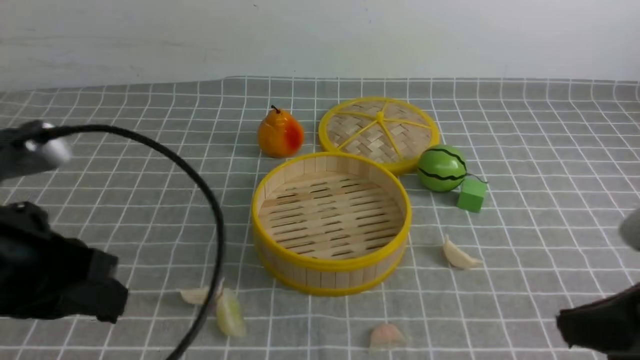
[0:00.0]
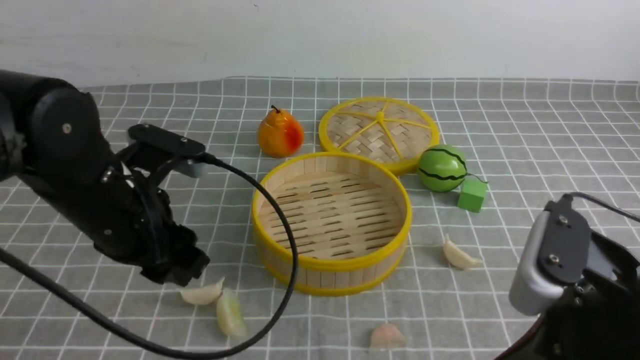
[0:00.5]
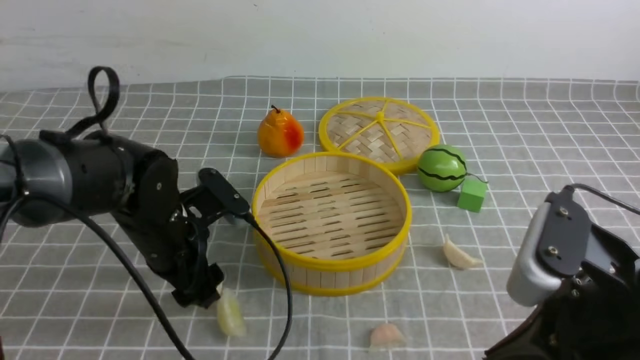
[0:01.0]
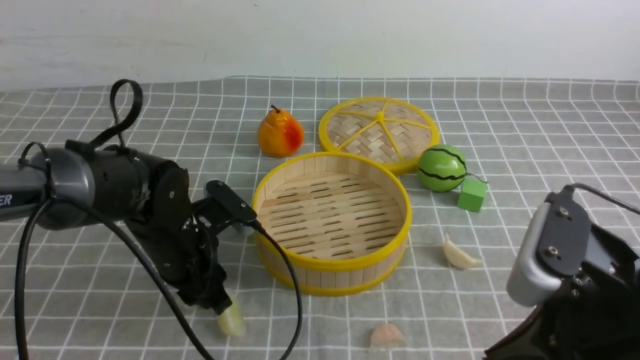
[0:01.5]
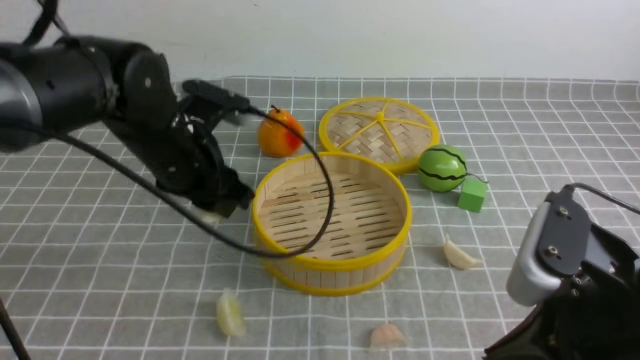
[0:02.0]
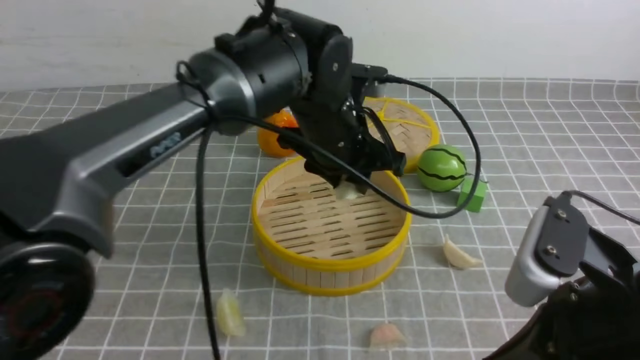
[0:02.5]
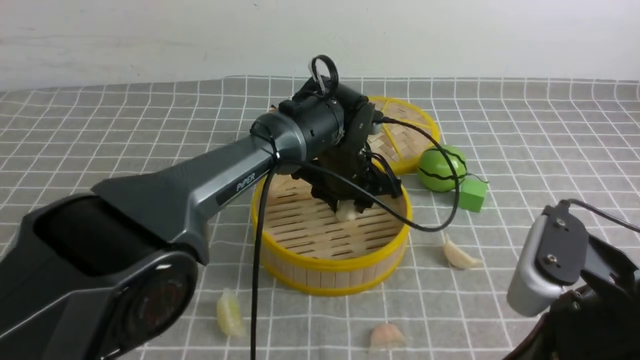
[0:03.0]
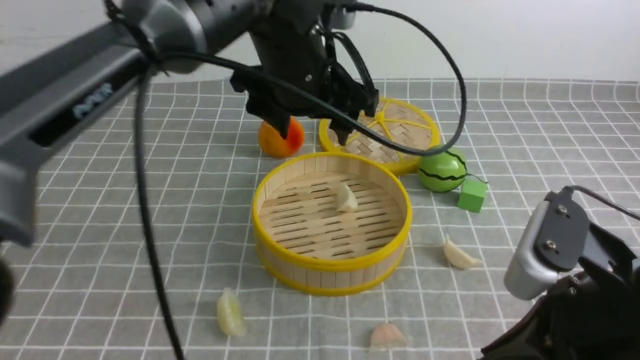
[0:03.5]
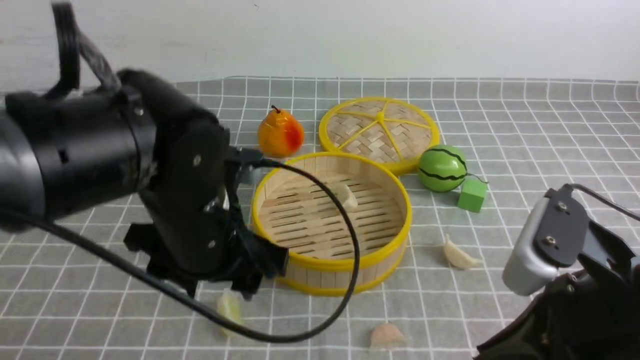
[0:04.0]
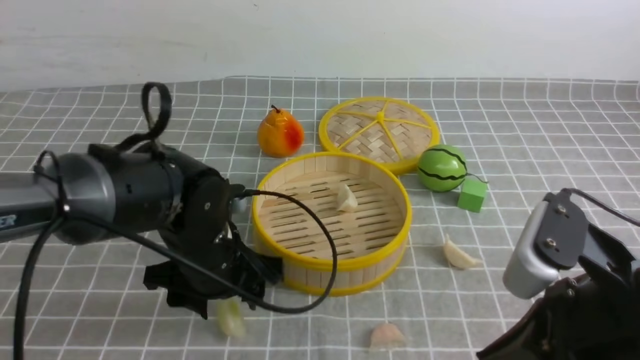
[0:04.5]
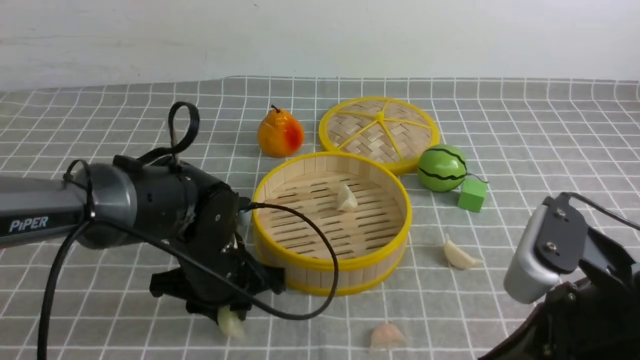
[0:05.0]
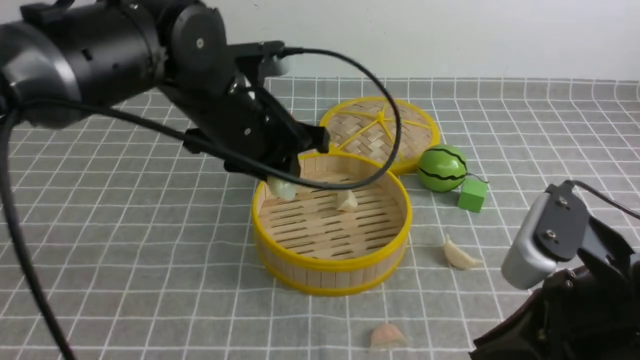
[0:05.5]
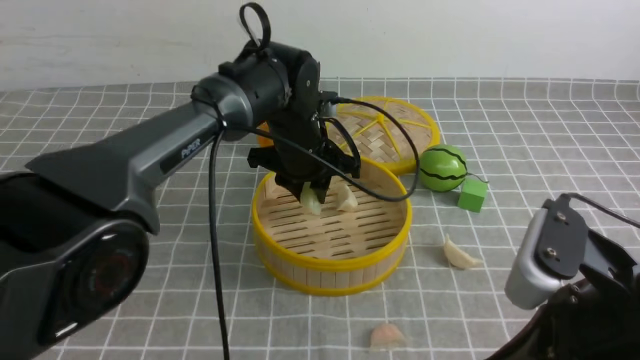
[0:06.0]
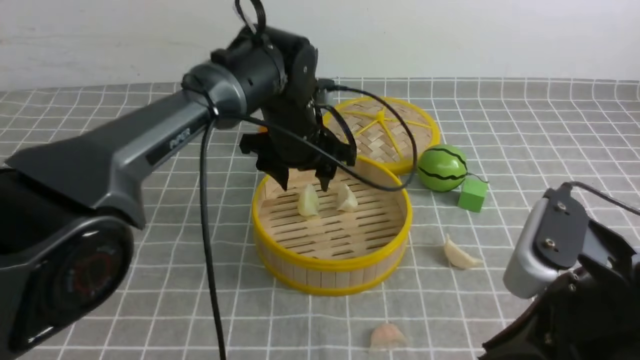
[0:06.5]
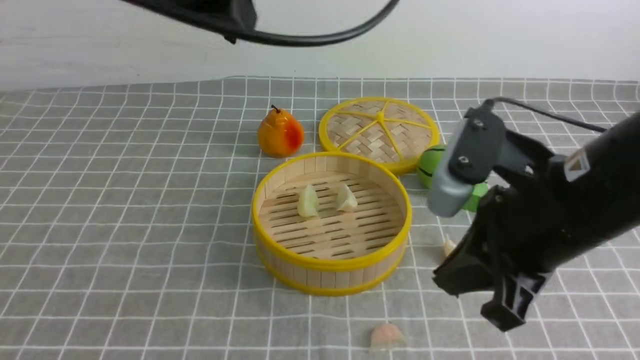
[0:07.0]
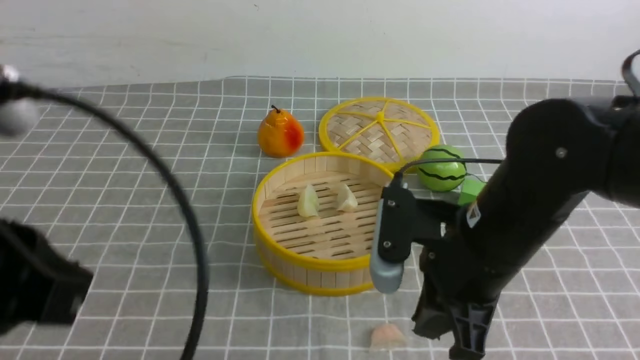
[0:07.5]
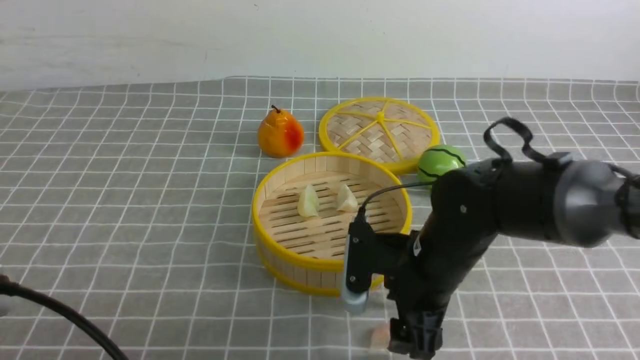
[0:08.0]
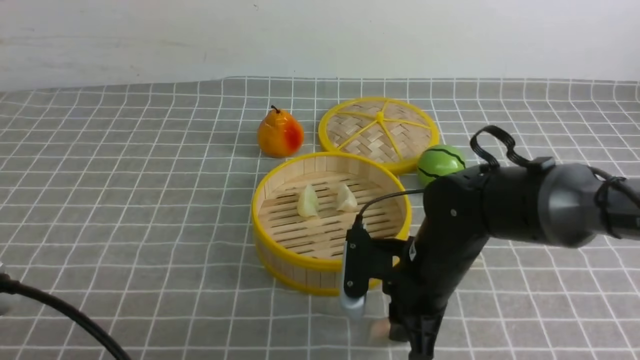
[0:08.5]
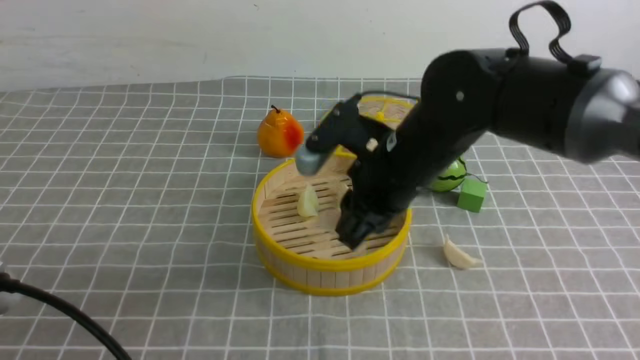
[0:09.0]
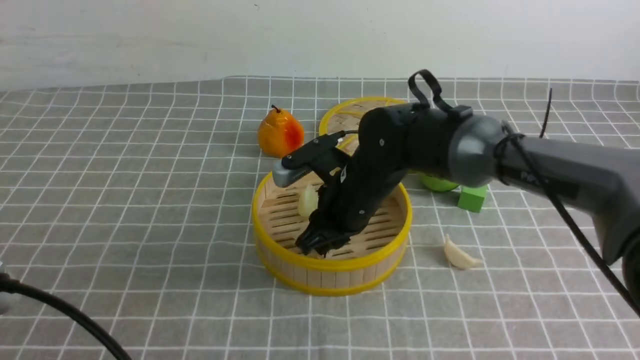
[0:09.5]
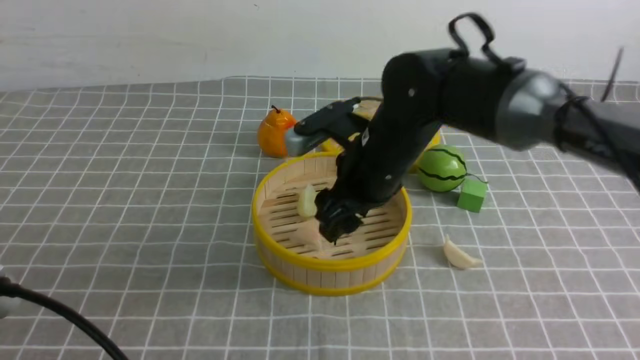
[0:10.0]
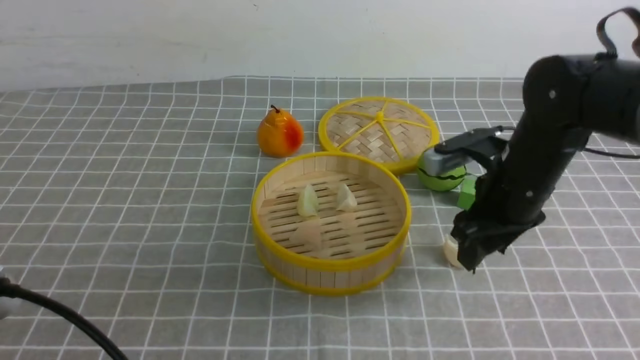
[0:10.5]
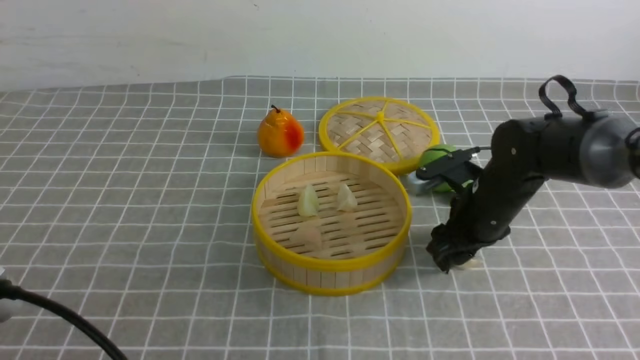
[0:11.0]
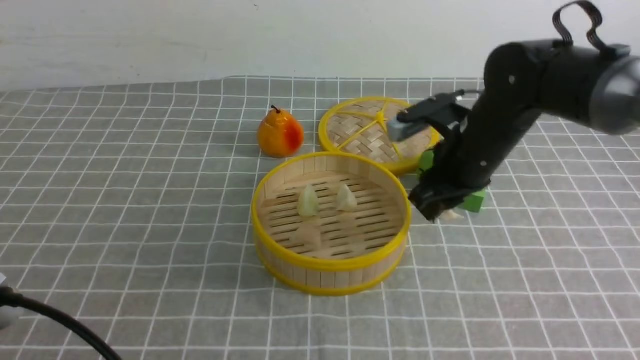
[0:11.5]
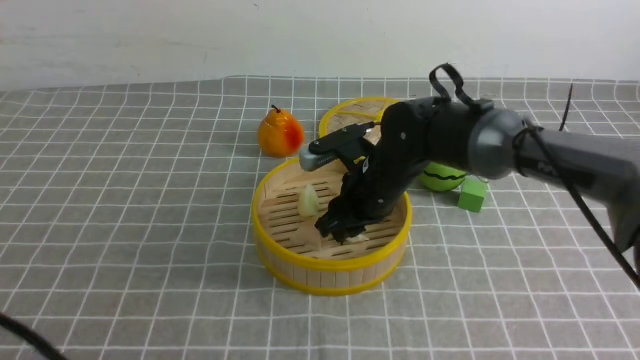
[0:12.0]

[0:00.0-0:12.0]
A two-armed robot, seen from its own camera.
Task of the whole recording: put the dumplings into the steamer on the table with the grey tablecloth.
Step, 0:02.0 to 0:03.0: use the left arm to put the dumpling into the steamer.
Step, 0:03.5 to 0:05.0: use the left arm to grab a dumpling.
Step, 0:05.5 to 0:06.5: use the left arm to put the dumpling into the steamer.
Step, 0:07.0 to 0:08.5: use the right arm to grab a dumpling.
Step, 0:09.0 to 0:09.5: use the right arm to put the dumpling into the steamer.
Step, 0:10.0 to 0:11.0: use the right arm to grab a dumpling.
0:00.0 to 0:02.0: The left gripper shifts about 20 cm forward and to the right, and opens its fingers. The right gripper shifts some 5 cm to the left.
0:02.0 to 0:04.0: The left gripper travels backward by roughly 5 cm, and opens its fingers.
0:04.0 to 0:06.0: The left gripper shifts roughly 20 cm forward and to the right, and closes.
0:06.0 to 0:08.0: The left gripper shifts roughly 40 cm backward and to the left, and closes up. Meanwhile the right gripper is displaced forward, downward and to the left by about 20 cm, and opens up.
0:08.0 to 0:10.0: The right gripper travels upward and forward by about 10 cm, and closes, then reopens.
0:10.0 to 0:12.0: The right gripper is displaced downward by approximately 5 cm, and moves roughly 10 cm to the right and comes back.

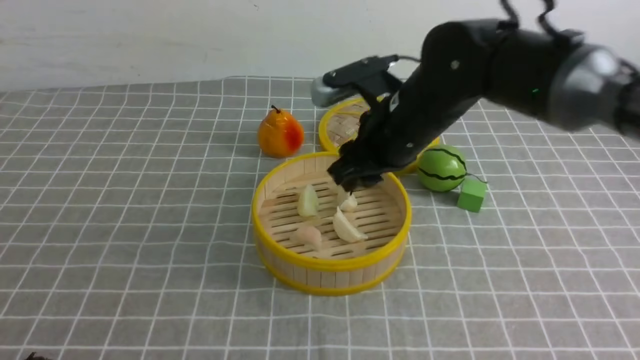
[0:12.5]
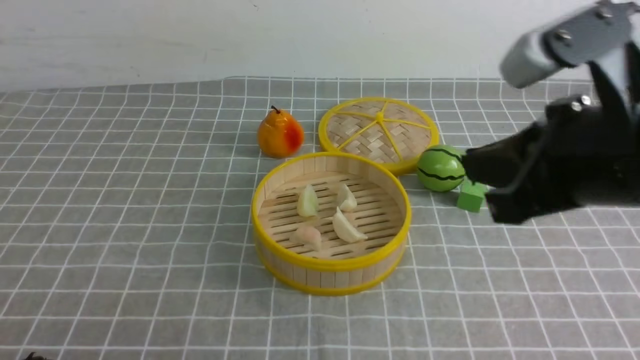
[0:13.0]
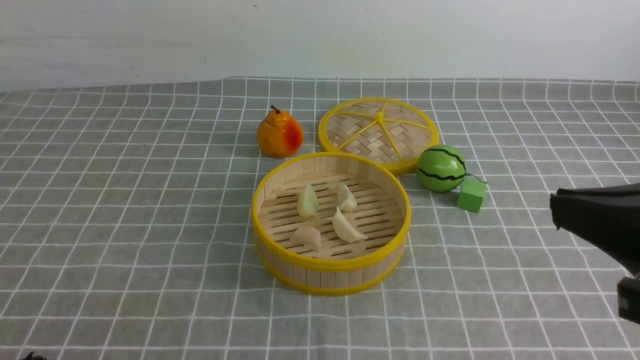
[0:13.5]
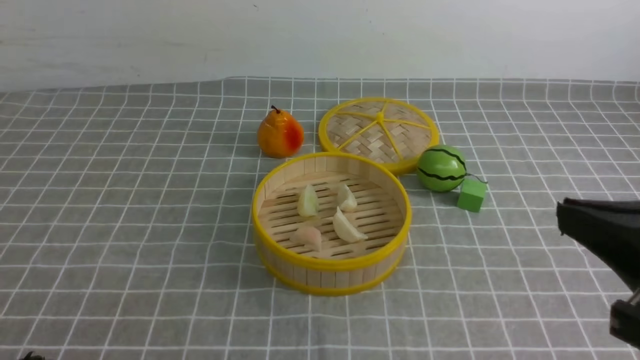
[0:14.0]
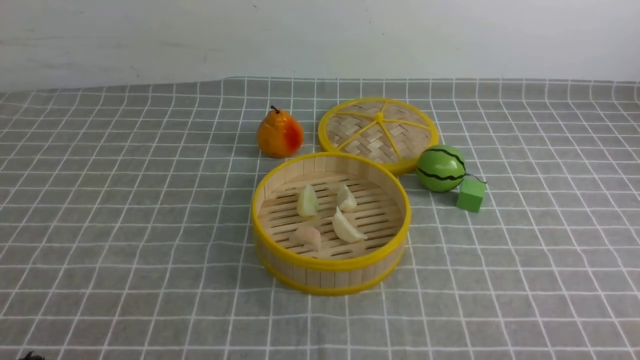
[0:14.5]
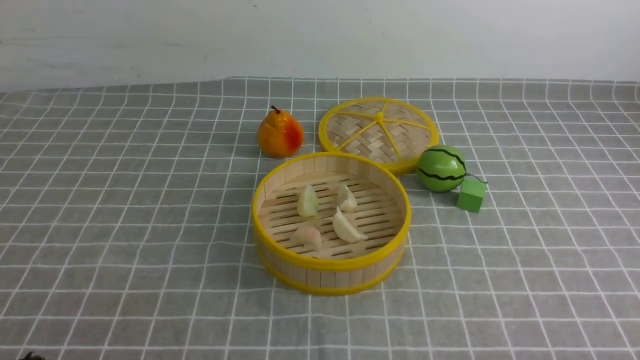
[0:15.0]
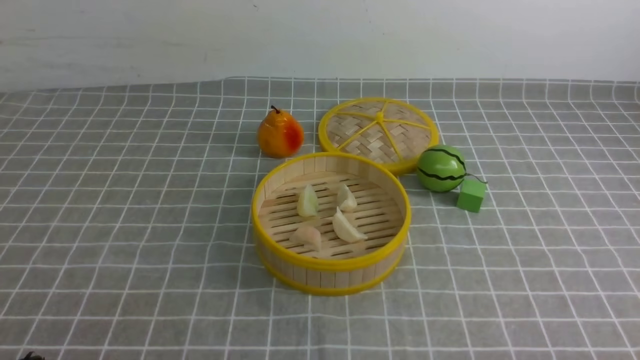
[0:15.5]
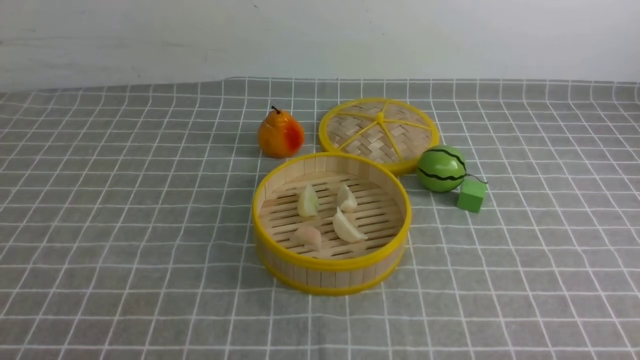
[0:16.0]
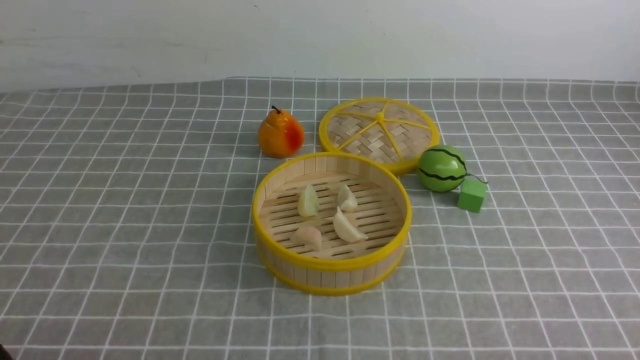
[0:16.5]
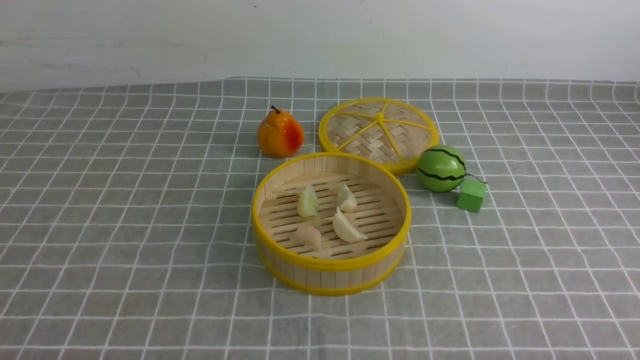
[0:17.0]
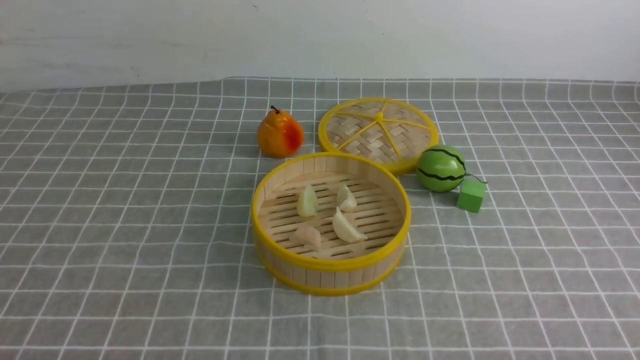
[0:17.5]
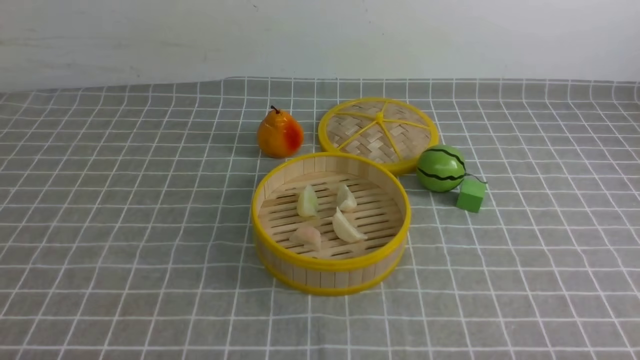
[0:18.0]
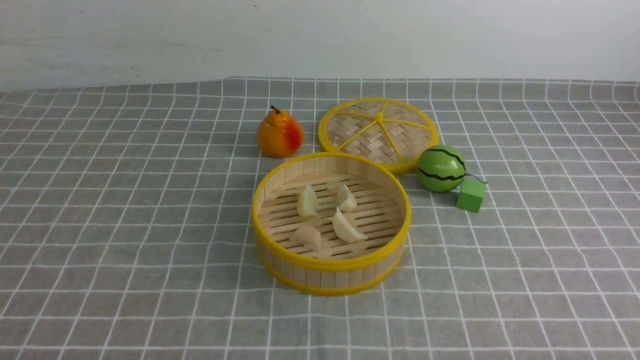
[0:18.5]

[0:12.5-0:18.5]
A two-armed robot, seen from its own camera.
Task of the whole recording: put the dumplings into the steamer on the table with the grey tablecloth.
0:12.5 to 0:14.5: The right gripper goes approximately 35 cm backward and to the right, and closes.
